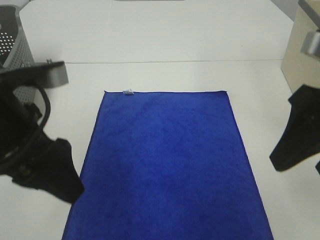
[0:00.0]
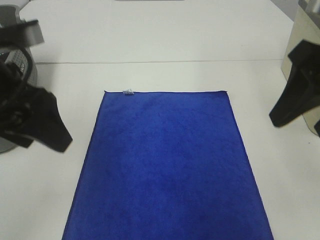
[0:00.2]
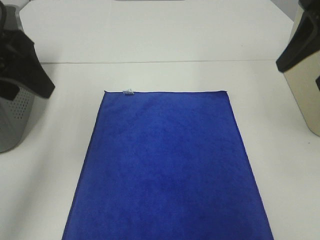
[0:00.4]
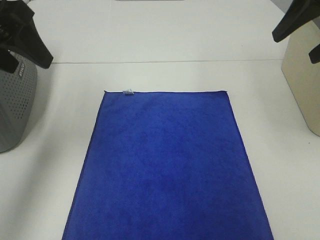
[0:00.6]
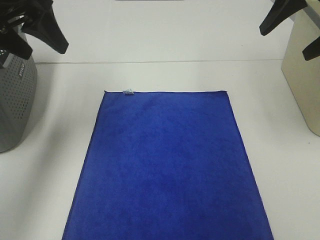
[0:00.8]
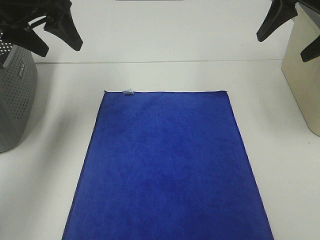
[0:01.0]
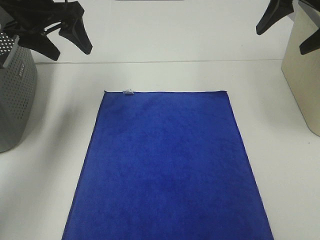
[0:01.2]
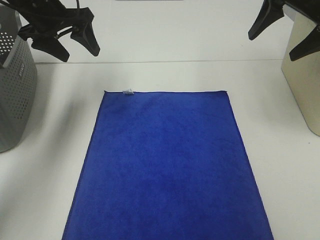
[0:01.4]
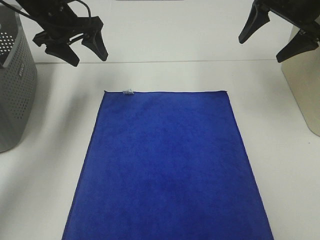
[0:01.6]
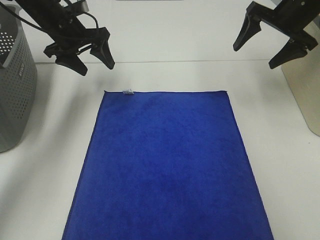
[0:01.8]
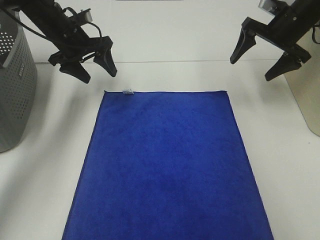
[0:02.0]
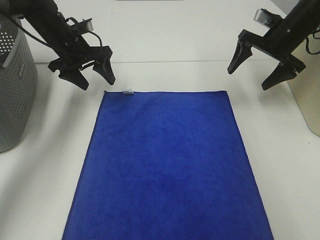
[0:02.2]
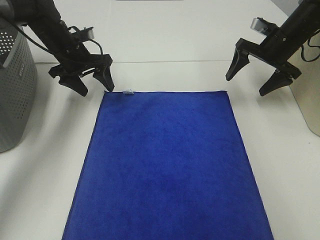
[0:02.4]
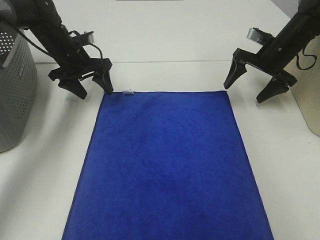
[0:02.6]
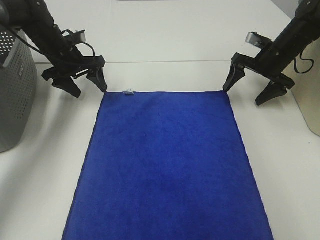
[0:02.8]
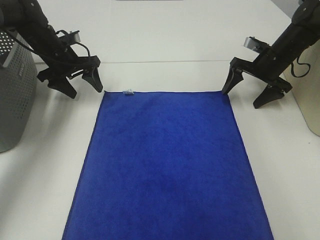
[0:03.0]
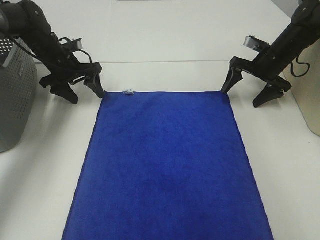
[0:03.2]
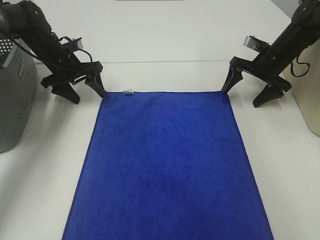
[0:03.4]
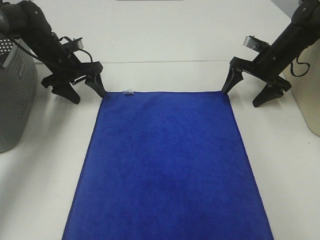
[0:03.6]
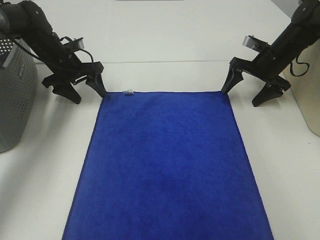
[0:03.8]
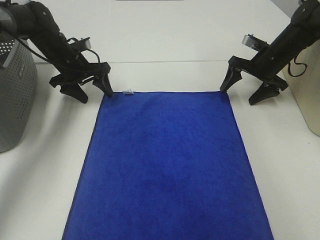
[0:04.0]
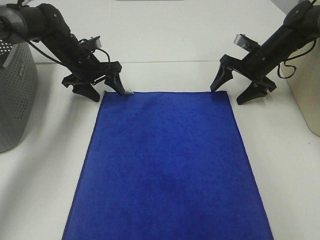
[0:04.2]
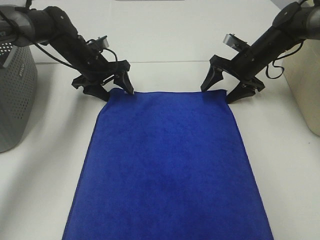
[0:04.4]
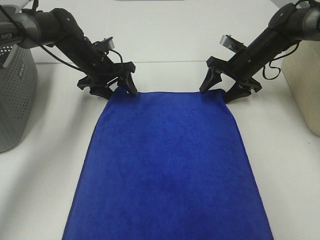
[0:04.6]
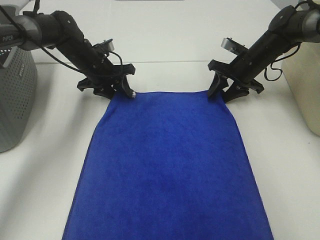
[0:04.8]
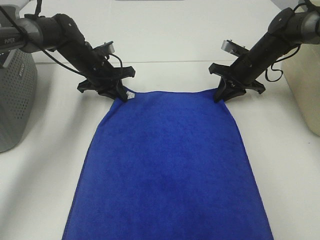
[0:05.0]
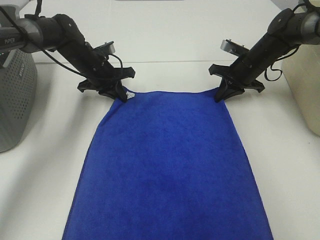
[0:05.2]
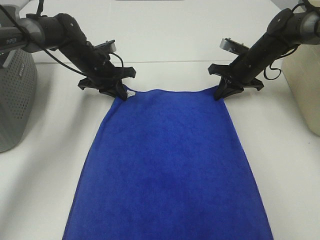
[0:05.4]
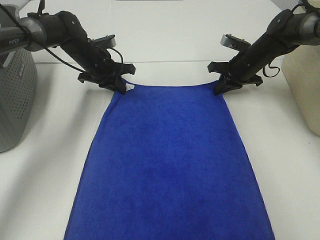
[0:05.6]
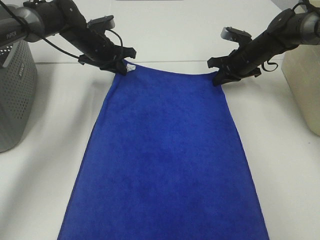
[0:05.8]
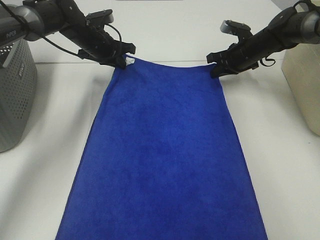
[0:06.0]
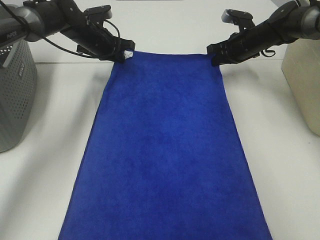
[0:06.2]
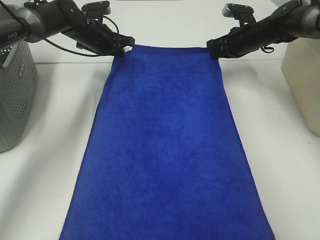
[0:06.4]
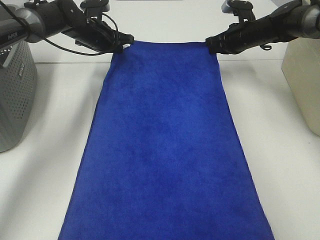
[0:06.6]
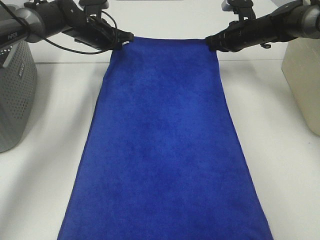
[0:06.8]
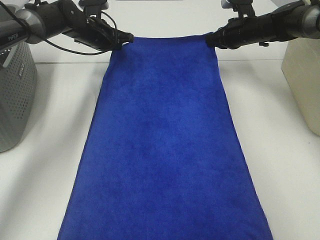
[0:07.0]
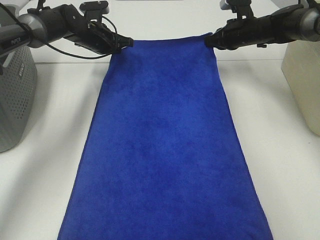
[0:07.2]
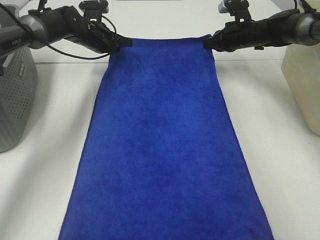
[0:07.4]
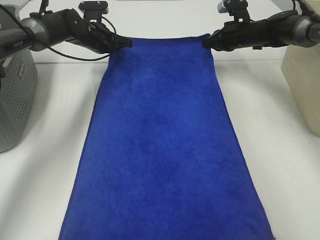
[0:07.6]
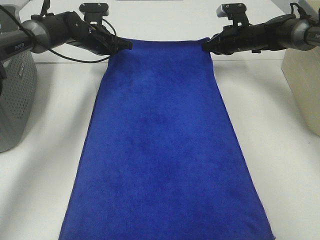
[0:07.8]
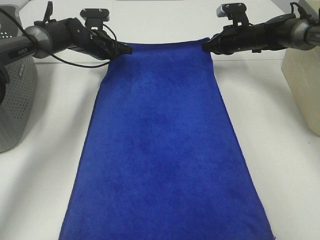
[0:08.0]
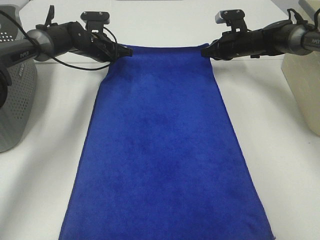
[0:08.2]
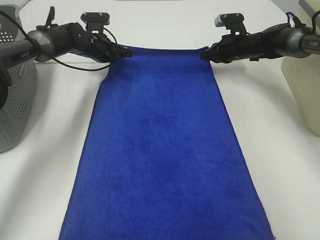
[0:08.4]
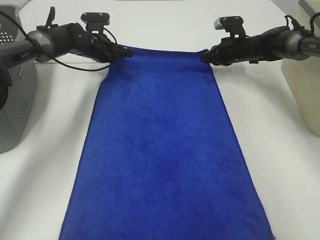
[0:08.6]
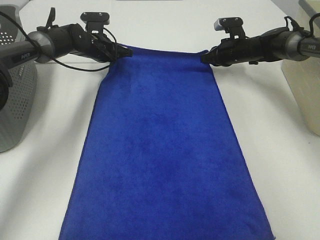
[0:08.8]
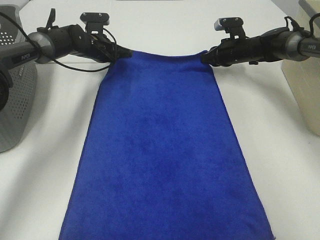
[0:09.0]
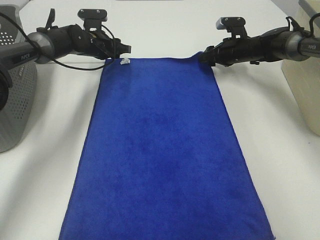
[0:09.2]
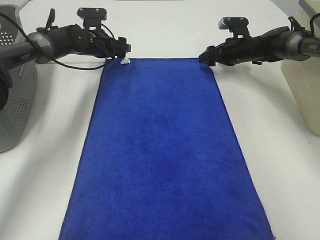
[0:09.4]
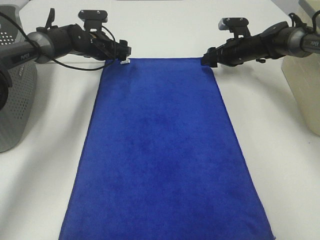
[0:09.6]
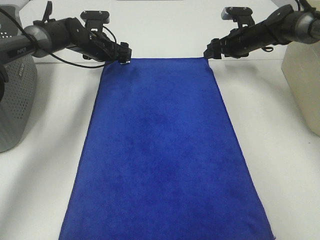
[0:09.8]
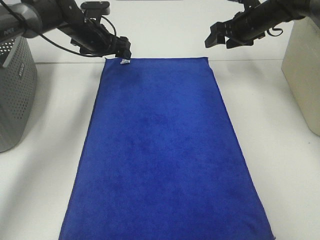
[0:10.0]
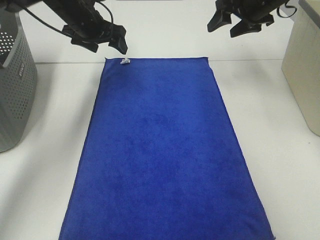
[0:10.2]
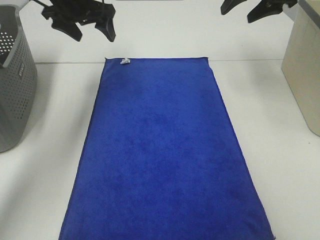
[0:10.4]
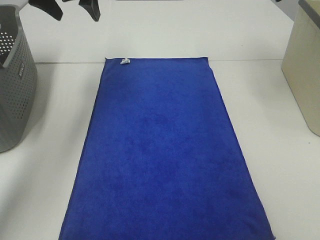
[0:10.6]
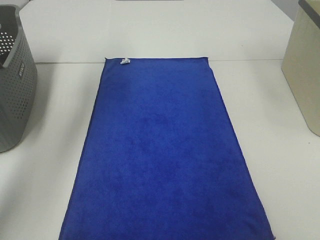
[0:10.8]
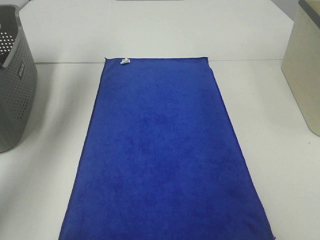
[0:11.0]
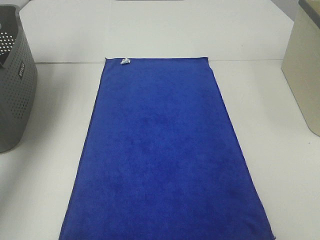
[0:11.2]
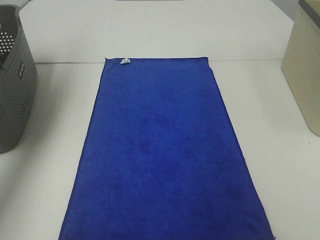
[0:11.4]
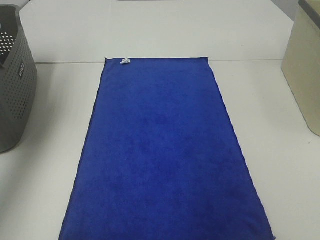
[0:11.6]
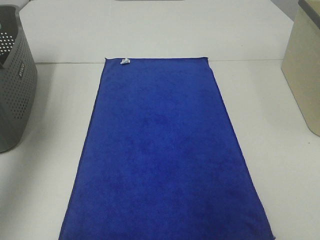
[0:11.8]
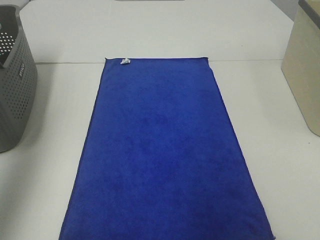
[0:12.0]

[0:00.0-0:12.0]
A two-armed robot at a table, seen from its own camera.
Task of the whole recording: Remove the towel and place it.
Step, 0:00.0 to 0:03.4: Left hand:adjust the blue towel.
Step, 0:00.0 to 0:03.4: Right hand:adjust the blue towel.
0:00.0 to 0:01.6: The grippers both shift forward by some 30 cm.
0:01.6 to 0:03.0: The right gripper travels downward by roughly 15 cm; the left gripper heads downward, covering about 10 cm.
0:03.0 to 0:04.4: The left gripper moves to the right, about 5 cm.
0:04.4 to 0:06.0: The left gripper moves approximately 5 cm, and closes up; the right gripper closes its fingers.
0:07.6 to 0:09.0: The grippers stay close to where they were, moving slightly.
0:09.0 to 0:10.4: The left gripper moves upward and backward, approximately 20 cm, and opens its fingers. The right gripper is displaced upward by about 20 cm, and opens its fingers.
0:10.4 to 0:12.0: The right gripper shifts approximately 35 cm backward; the left gripper moves backward, upward and to the left, some 35 cm.

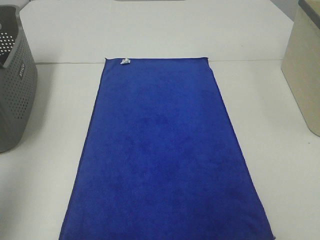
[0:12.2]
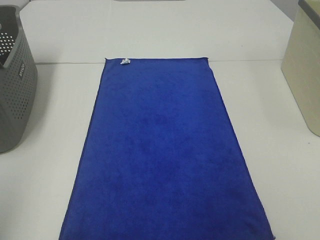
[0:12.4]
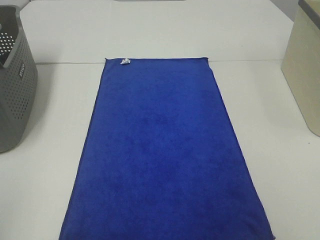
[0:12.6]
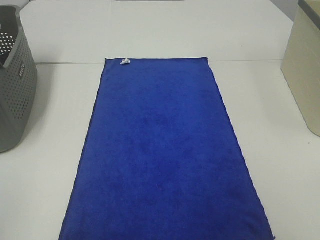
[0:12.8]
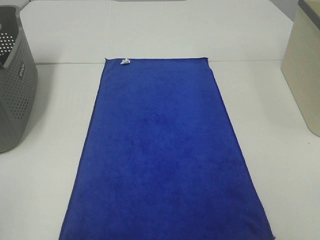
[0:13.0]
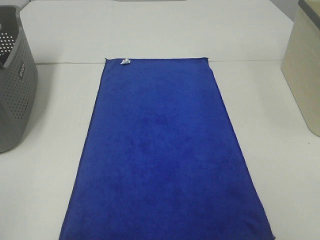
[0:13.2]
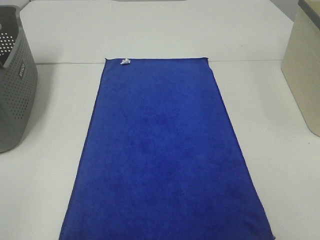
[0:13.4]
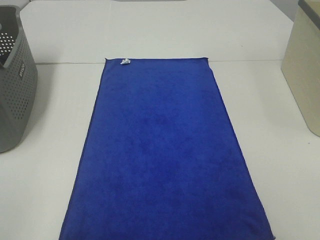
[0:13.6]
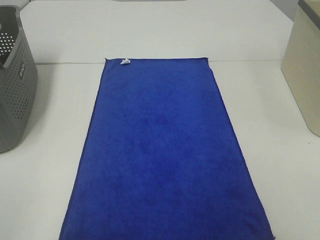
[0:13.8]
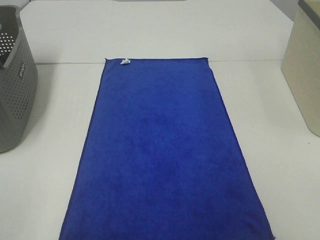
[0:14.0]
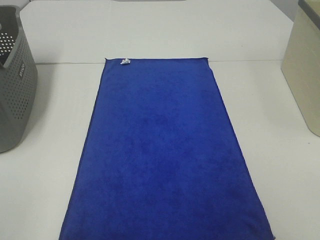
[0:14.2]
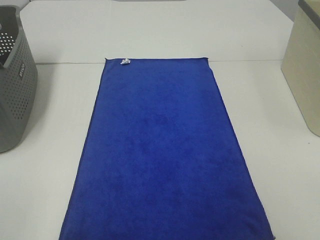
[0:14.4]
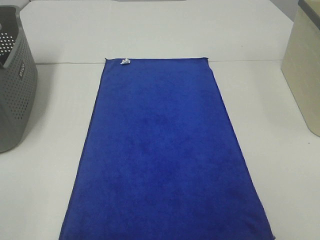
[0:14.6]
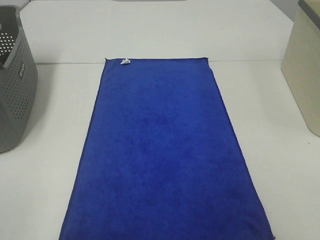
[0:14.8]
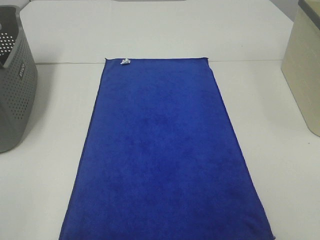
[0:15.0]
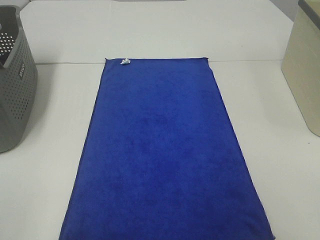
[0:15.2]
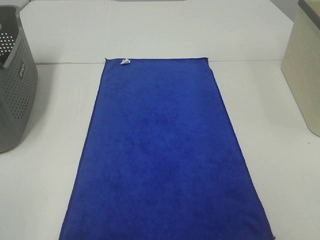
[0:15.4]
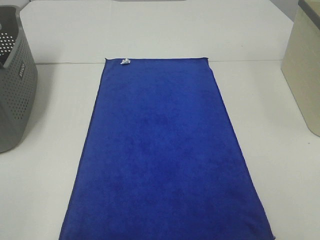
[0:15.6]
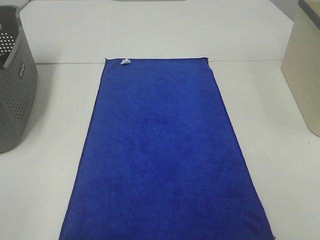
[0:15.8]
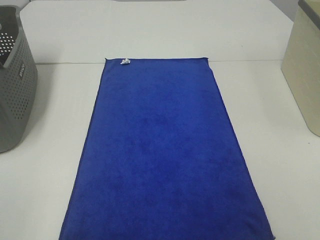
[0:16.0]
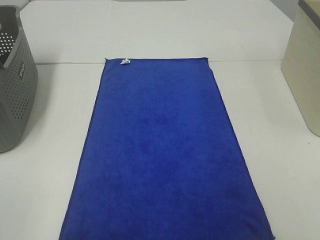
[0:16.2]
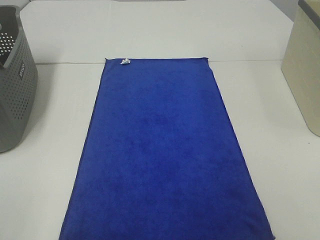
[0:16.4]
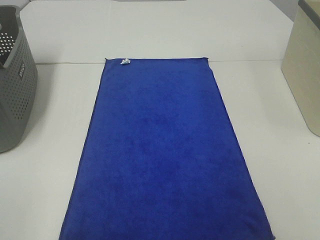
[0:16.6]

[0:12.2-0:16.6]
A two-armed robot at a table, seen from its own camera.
Task of the whole recording: Remove the towel and place it.
0:12.2 to 0:13.6: The left gripper goes roughly 15 cm backward and downward.
0:13.6 to 0:15.2: The two grippers keep their place.

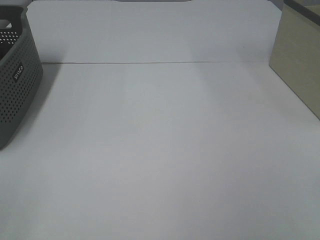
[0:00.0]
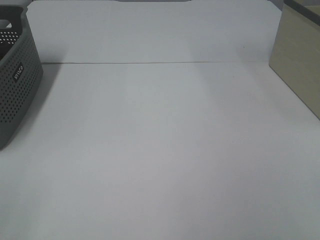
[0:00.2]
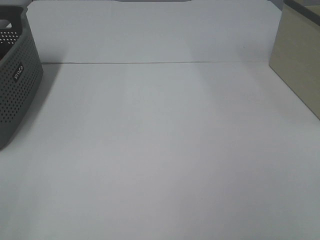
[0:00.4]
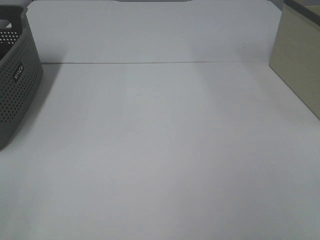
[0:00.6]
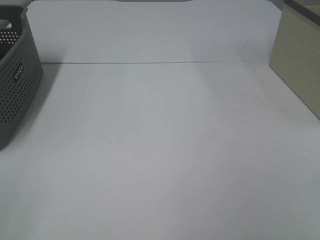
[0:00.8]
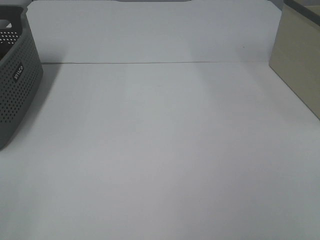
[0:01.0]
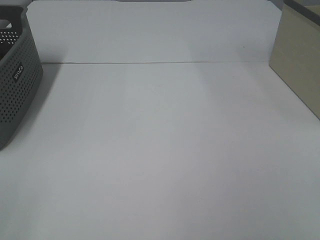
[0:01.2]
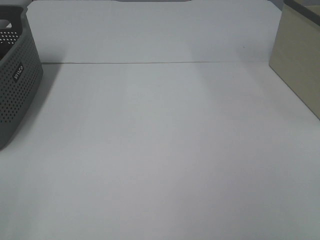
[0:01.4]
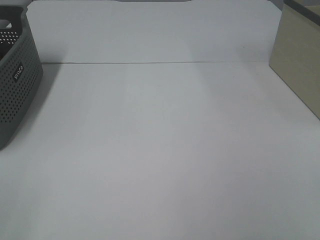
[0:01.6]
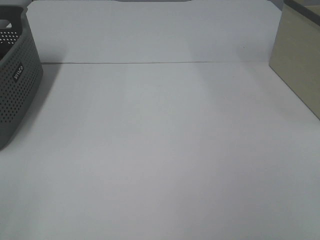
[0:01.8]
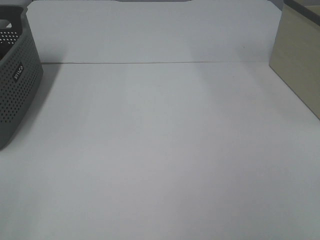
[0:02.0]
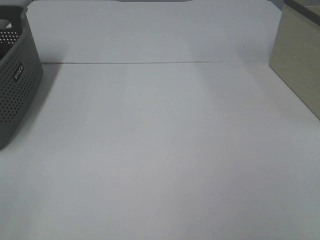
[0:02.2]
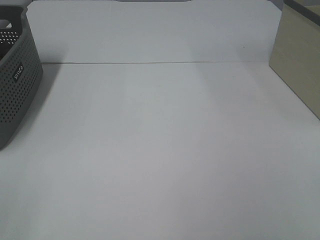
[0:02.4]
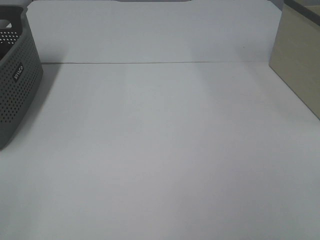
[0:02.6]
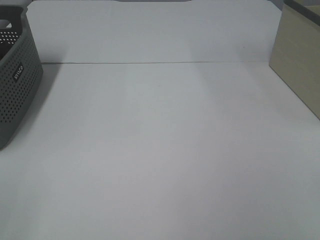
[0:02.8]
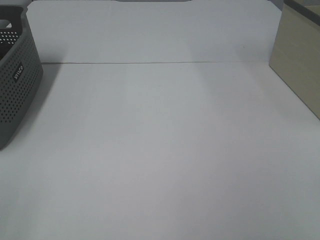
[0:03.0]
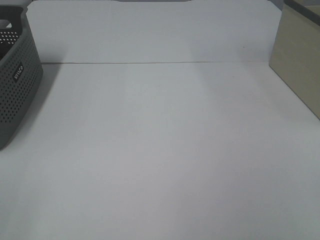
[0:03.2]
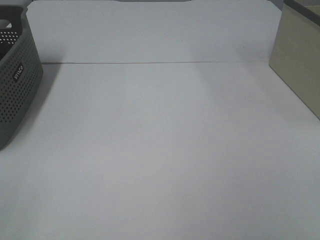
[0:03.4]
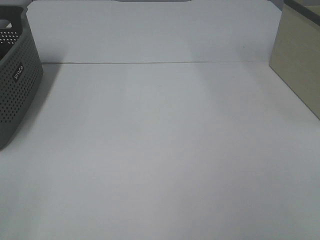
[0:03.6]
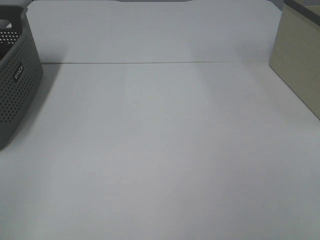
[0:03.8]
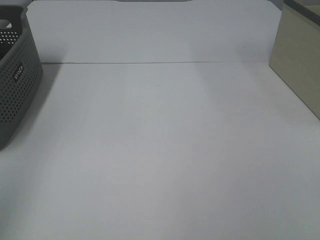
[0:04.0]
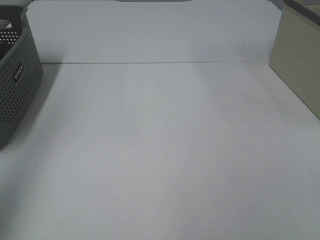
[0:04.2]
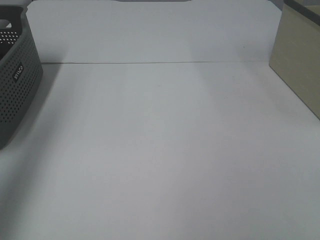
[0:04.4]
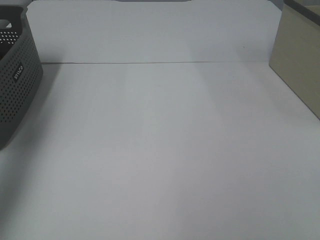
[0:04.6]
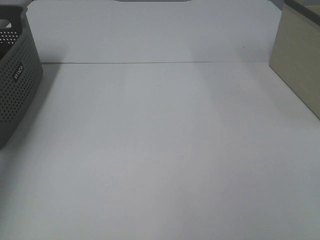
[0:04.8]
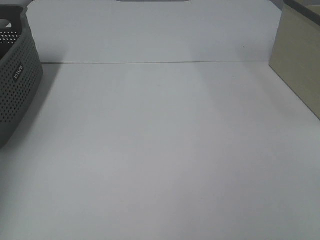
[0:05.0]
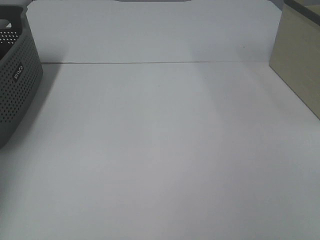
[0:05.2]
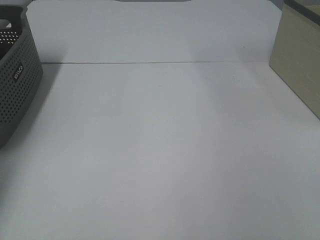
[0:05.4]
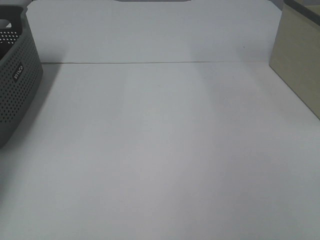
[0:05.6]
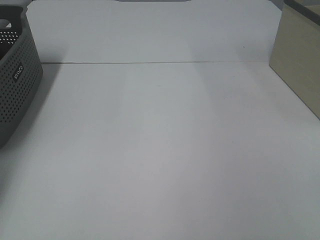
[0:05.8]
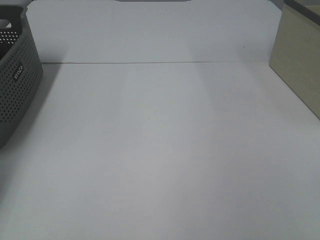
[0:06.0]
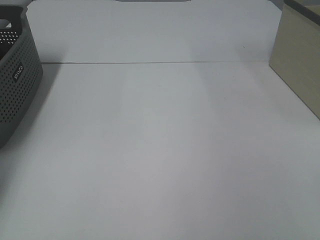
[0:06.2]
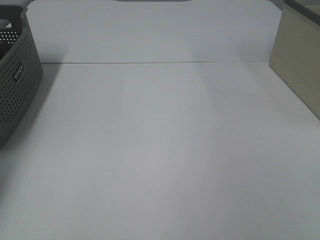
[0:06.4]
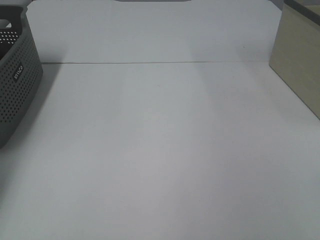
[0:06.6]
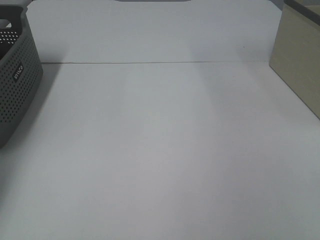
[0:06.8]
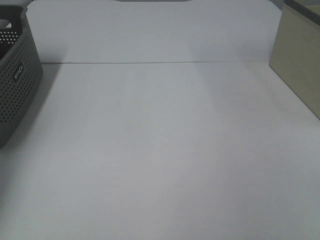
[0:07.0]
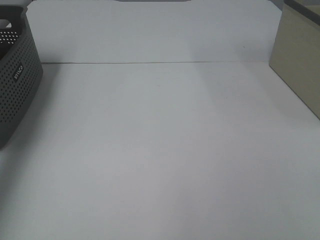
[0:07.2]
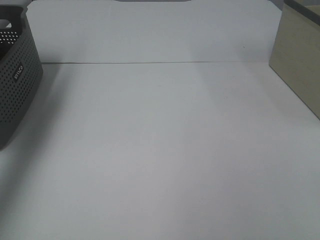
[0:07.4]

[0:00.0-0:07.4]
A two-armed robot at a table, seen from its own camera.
Task of the whole recording: Remove the towel and place it.
0:00.0 to 0:03.0: Both grippers stay put.
0:03.0 to 0:04.4: The left gripper moves forward and upward, some 25 cm.
0:04.4 to 0:06.0: The left gripper goes roughly 35 cm forward and downward, and closes its fingers.
0:06.0 to 0:07.4: The left gripper moves upward and backward, roughly 25 cm, and closes its fingers.
